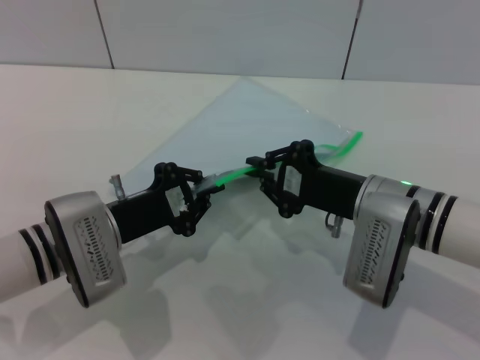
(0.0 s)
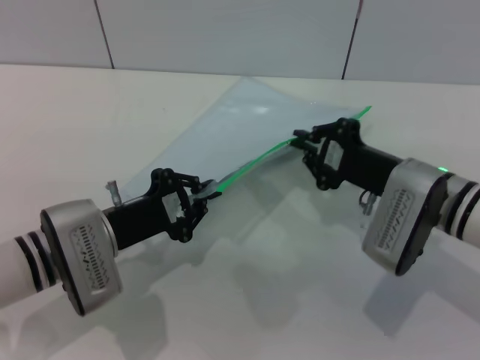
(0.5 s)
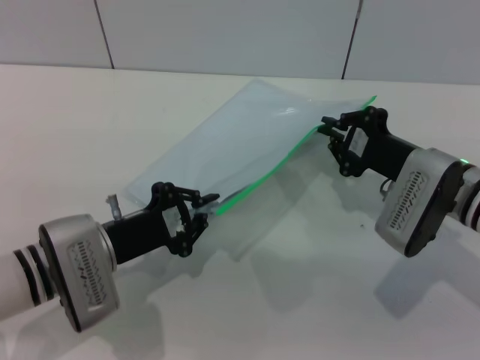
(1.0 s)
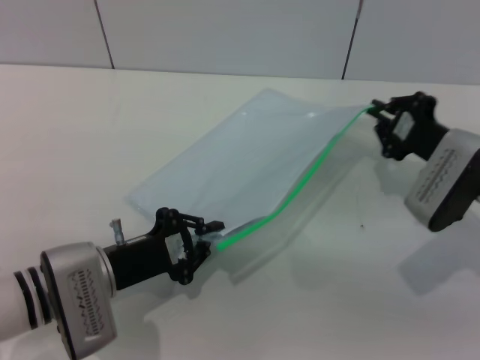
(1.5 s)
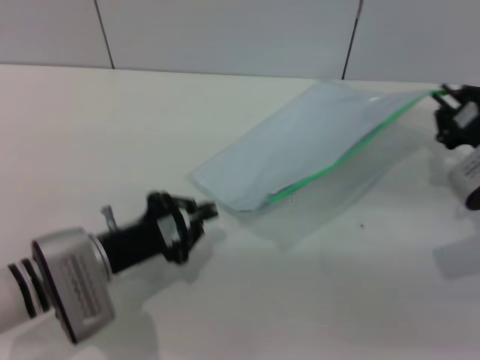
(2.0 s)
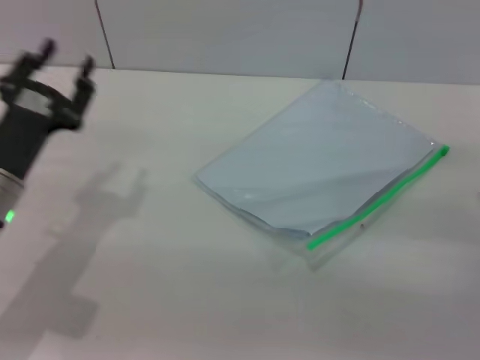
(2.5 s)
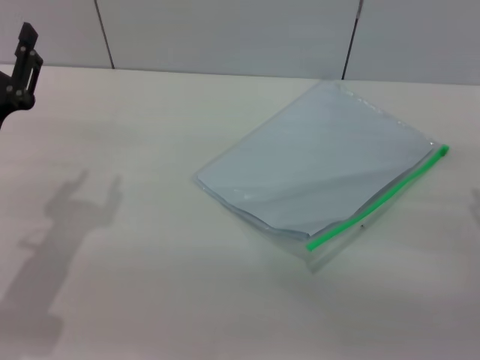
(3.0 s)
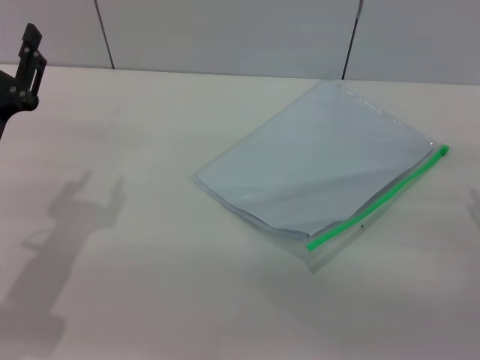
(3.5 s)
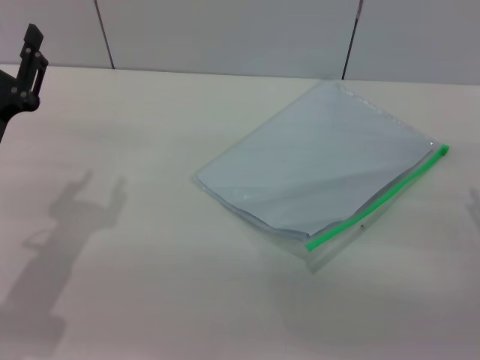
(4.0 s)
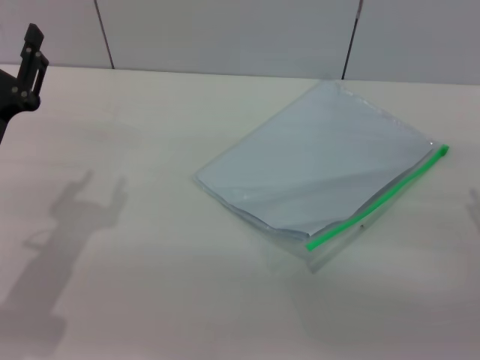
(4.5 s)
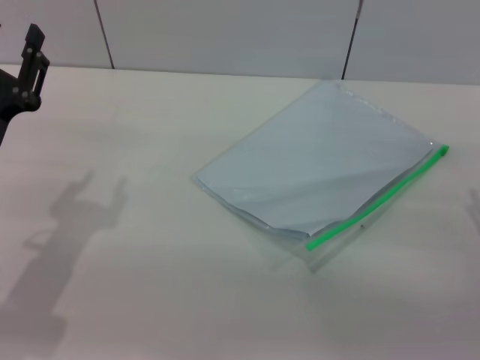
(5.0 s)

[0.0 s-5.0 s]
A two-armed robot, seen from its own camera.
Step, 2.0 to 2.5 s: Place the transparent plastic bag.
0.0 to 2.5 s: The right gripper moves to the right, approximately 15 cm. The left gripper travels to the left by about 5 cm, and opens its fingers.

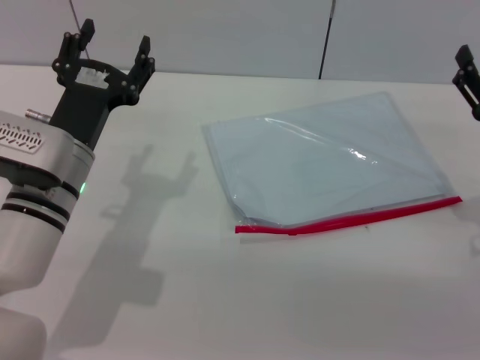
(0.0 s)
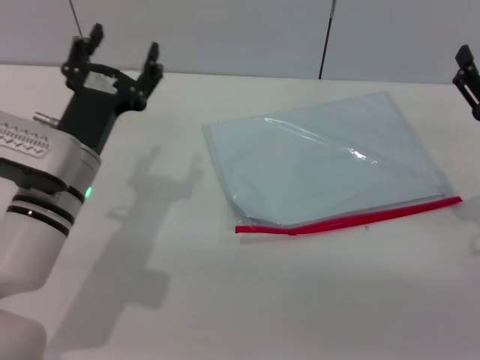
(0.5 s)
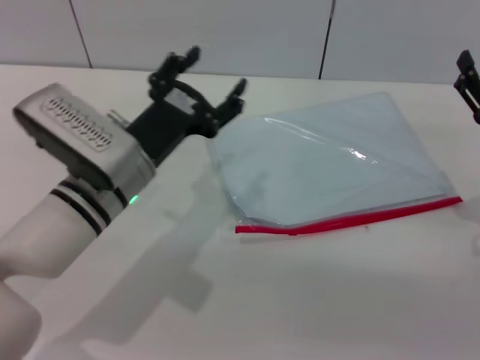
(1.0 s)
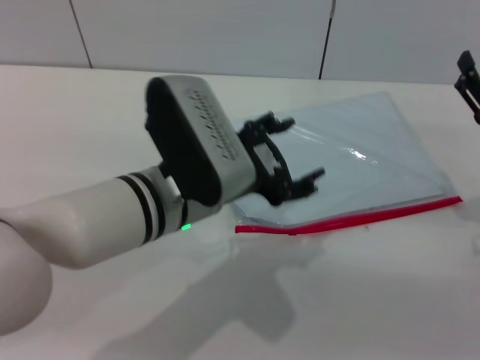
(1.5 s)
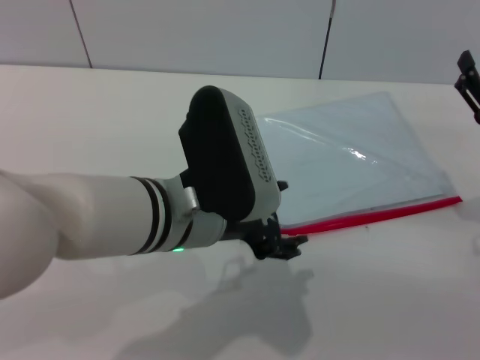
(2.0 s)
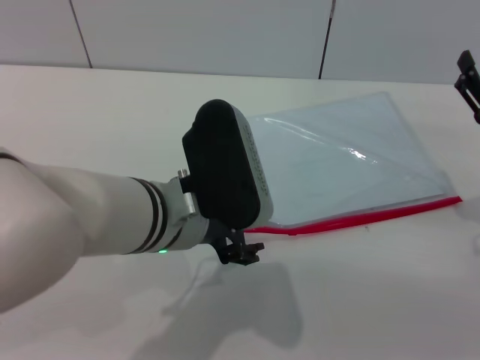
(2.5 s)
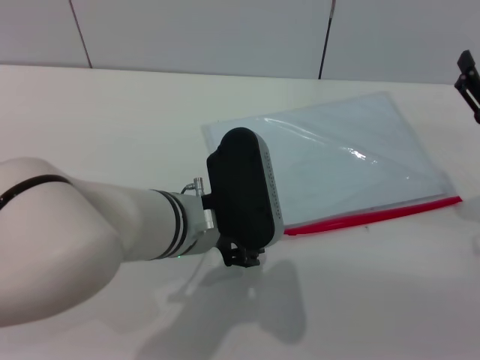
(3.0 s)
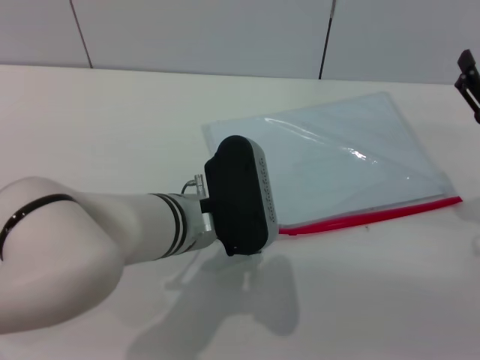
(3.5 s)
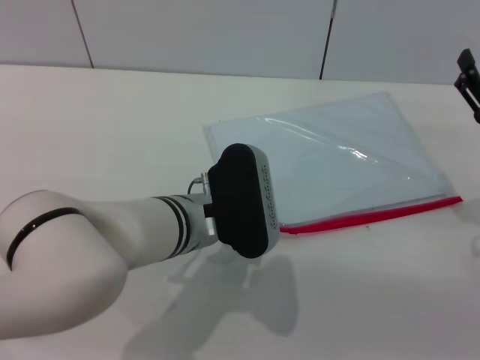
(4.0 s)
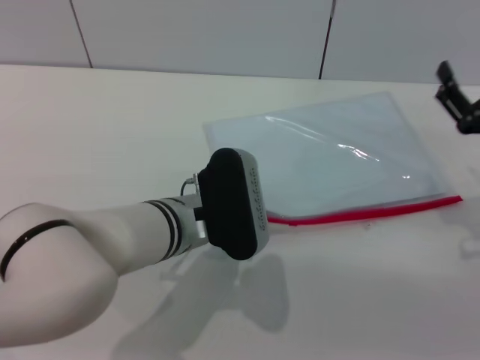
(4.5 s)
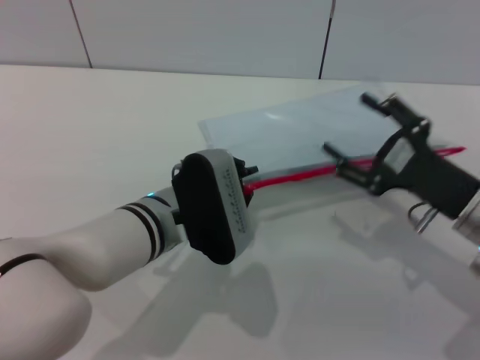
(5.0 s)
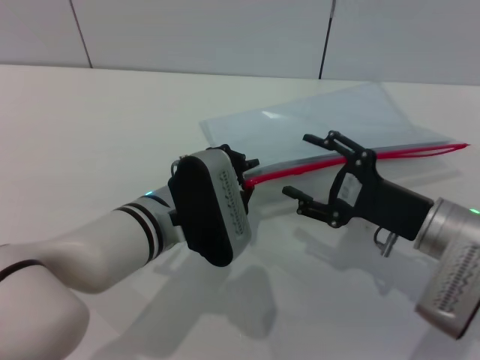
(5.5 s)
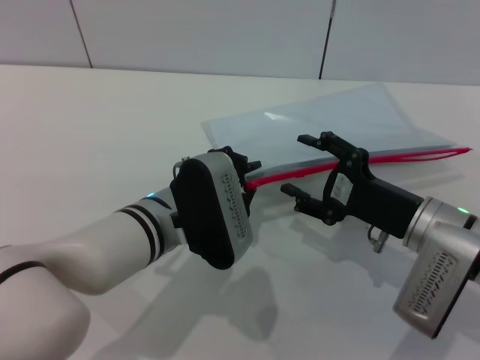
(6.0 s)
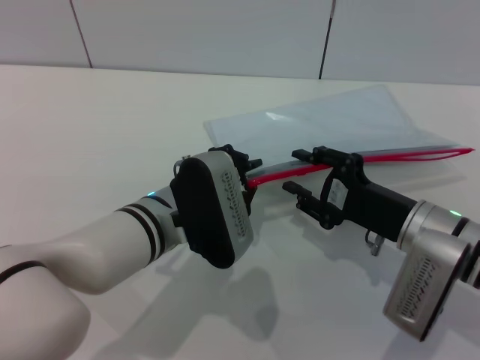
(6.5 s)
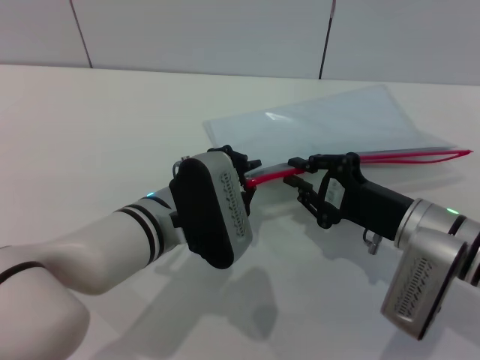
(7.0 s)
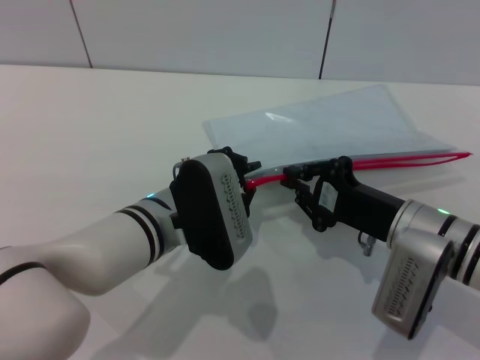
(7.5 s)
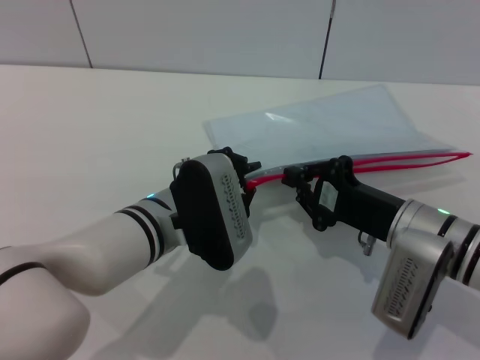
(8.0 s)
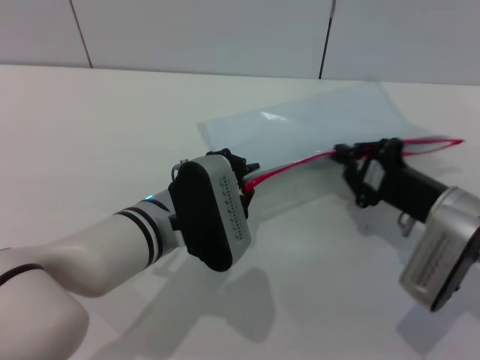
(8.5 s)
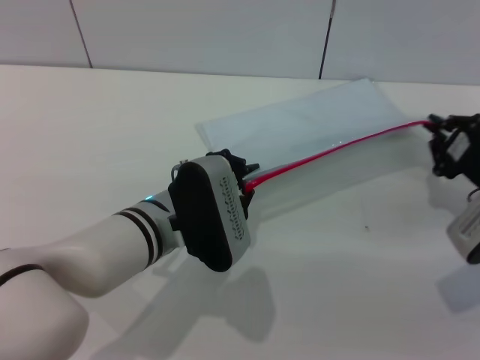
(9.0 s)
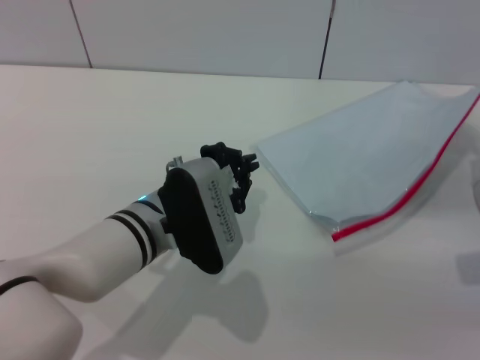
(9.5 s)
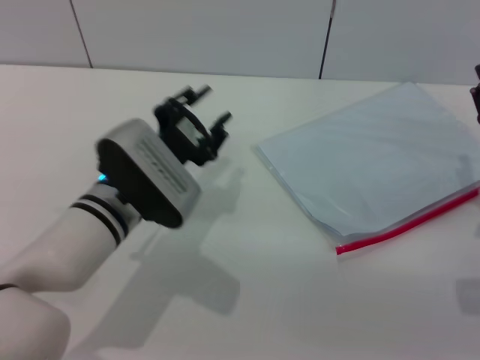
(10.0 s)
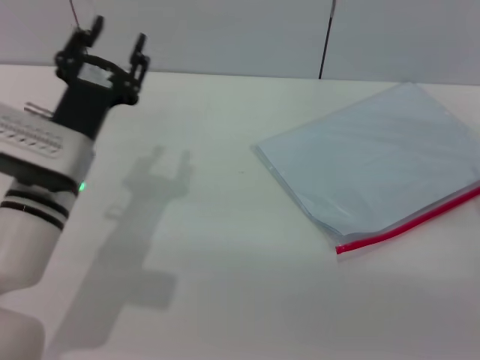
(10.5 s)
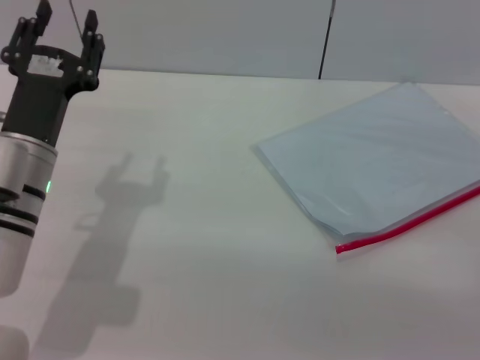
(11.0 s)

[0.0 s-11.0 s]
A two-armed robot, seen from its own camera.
Step, 0.0 to 4.5 s: Pick up the transparent plastic bag with the left gripper.
Step, 5.5 to 9.0 s: Pulling up the zipper on the transparent plastic bag with the right gripper to close it.
0.0 to 2.0 s: The left gripper is displaced to the right and upward by approximately 15 cm.
2.0 to 3.5 s: The left gripper moves downward, roughly 5 cm.
3.5 to 5.5 s: The right gripper is displaced to the left by approximately 10 cm. Meanwhile the left gripper closes its fingers.
5.5 to 7.5 s: The right gripper closes its fingers.
7.5 to 9.0 s: The right gripper moves to the right, roughly 10 cm.
9.0 to 11.0 s: The right gripper travels backward by roughly 5 cm, and opens its fingers, while the left gripper moves to the left, about 10 cm, and opens its fingers.
